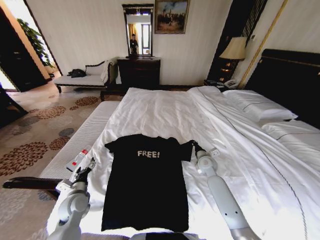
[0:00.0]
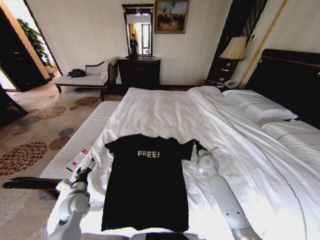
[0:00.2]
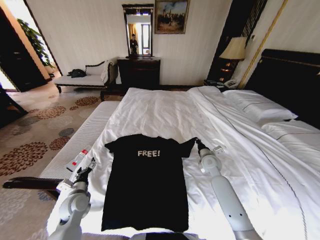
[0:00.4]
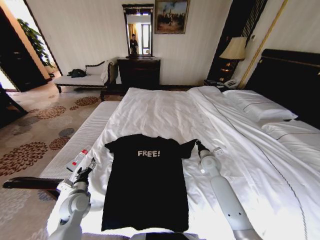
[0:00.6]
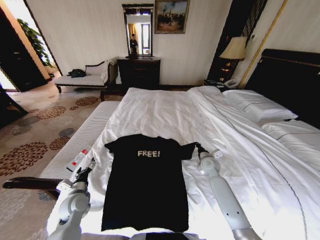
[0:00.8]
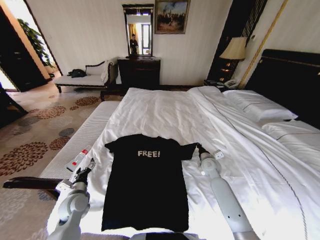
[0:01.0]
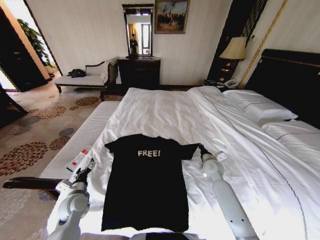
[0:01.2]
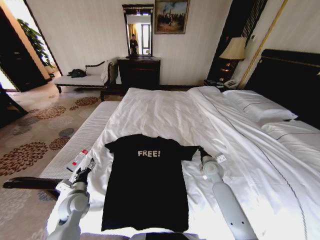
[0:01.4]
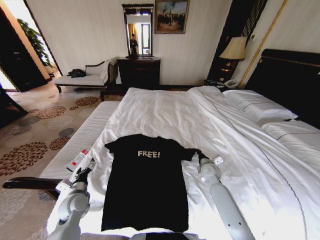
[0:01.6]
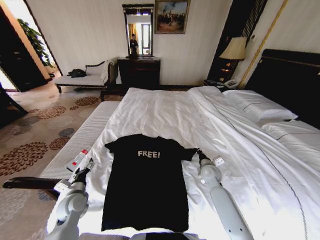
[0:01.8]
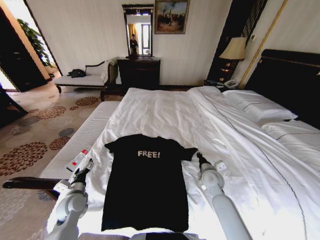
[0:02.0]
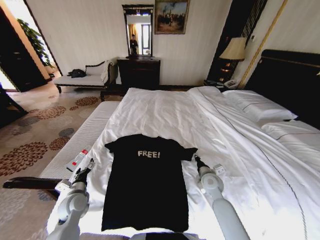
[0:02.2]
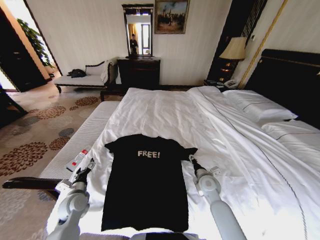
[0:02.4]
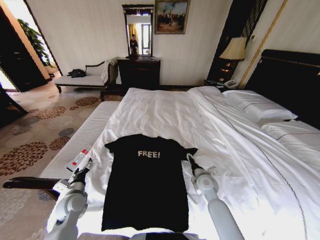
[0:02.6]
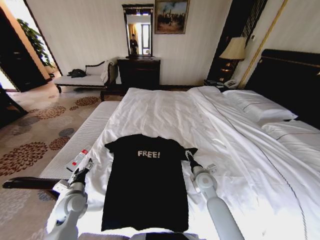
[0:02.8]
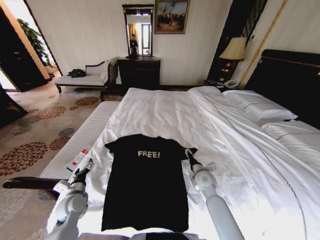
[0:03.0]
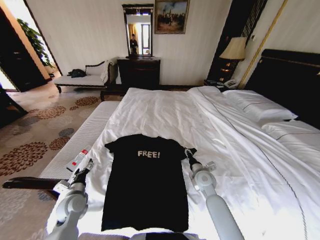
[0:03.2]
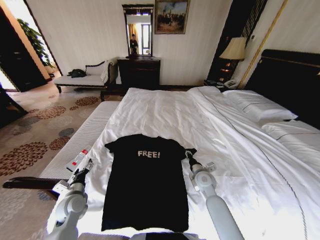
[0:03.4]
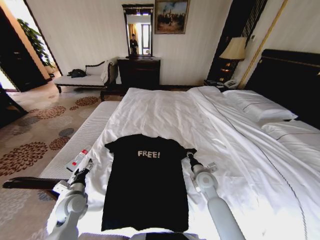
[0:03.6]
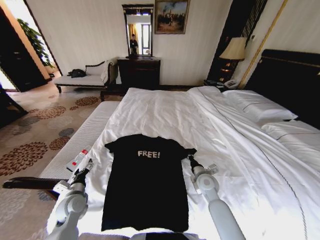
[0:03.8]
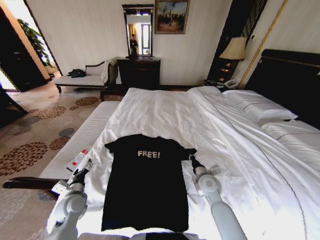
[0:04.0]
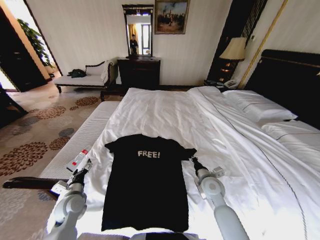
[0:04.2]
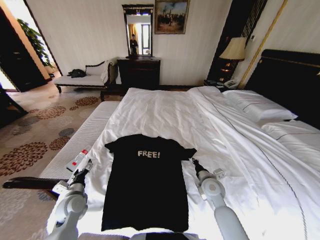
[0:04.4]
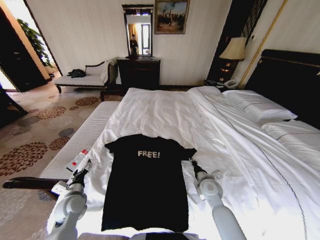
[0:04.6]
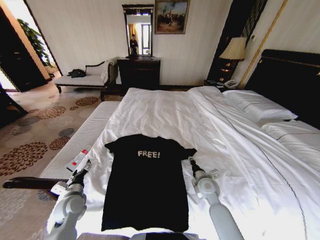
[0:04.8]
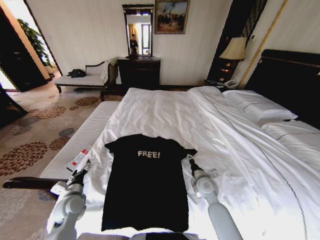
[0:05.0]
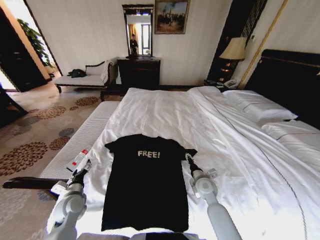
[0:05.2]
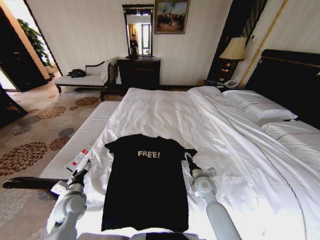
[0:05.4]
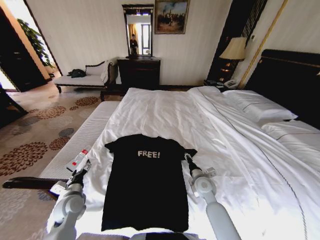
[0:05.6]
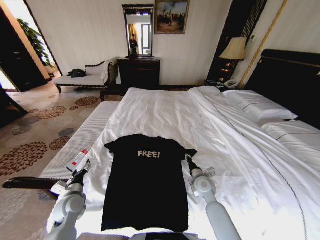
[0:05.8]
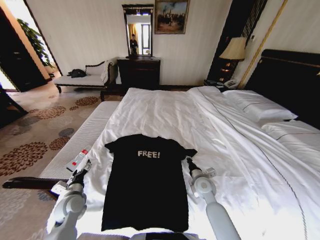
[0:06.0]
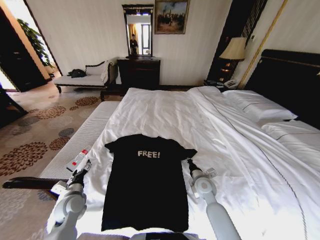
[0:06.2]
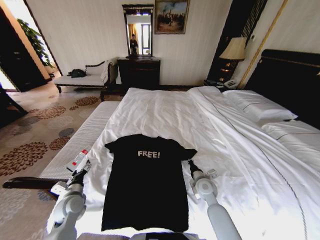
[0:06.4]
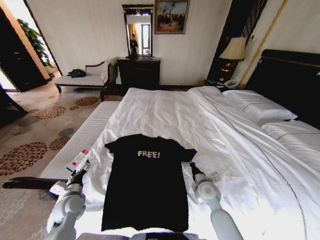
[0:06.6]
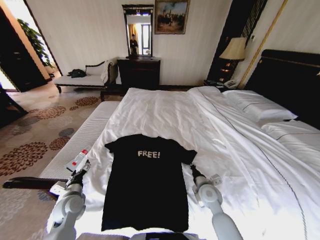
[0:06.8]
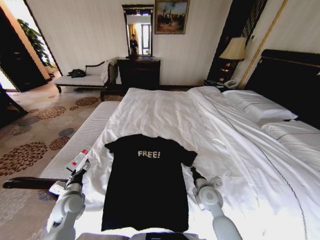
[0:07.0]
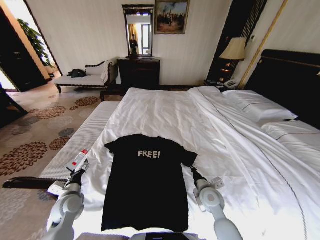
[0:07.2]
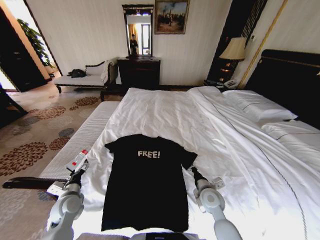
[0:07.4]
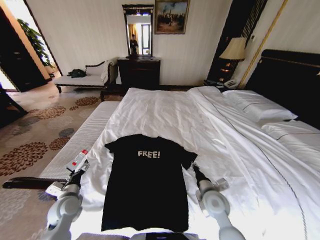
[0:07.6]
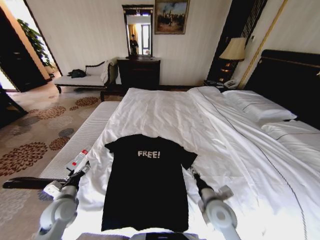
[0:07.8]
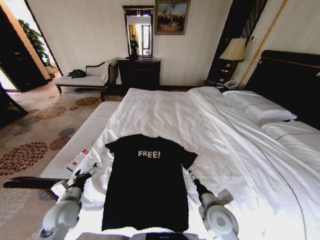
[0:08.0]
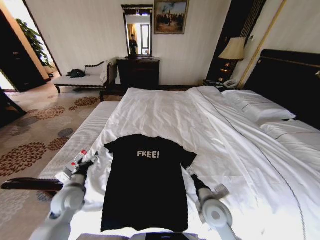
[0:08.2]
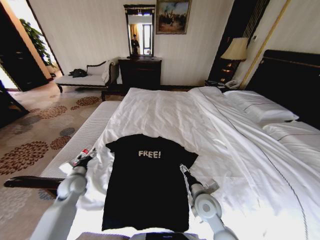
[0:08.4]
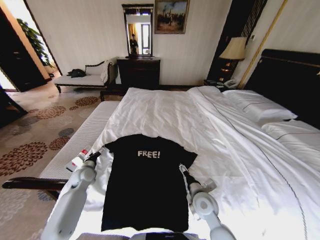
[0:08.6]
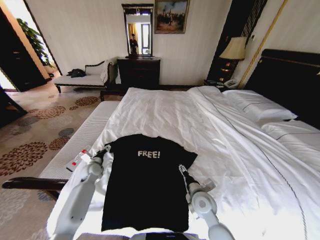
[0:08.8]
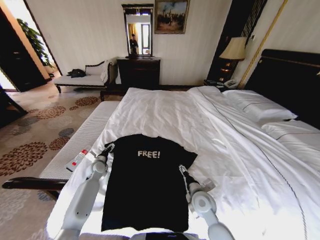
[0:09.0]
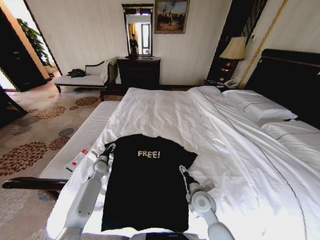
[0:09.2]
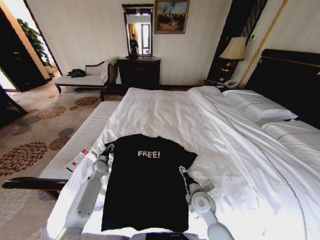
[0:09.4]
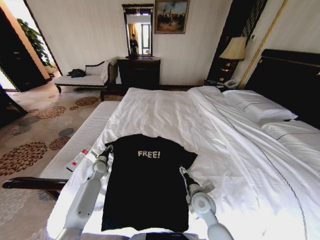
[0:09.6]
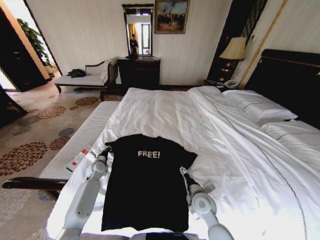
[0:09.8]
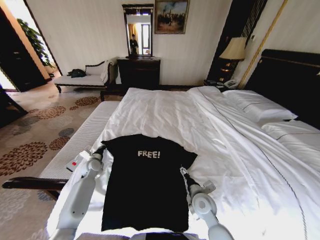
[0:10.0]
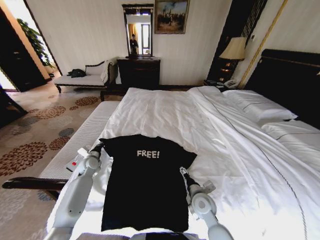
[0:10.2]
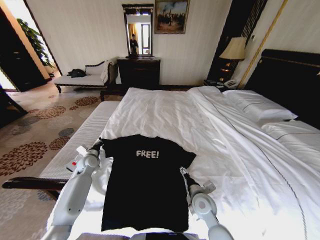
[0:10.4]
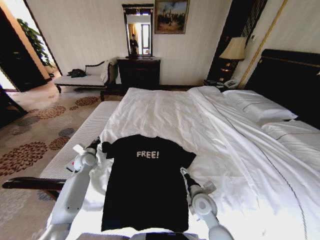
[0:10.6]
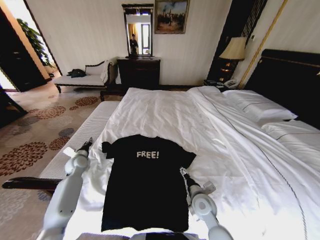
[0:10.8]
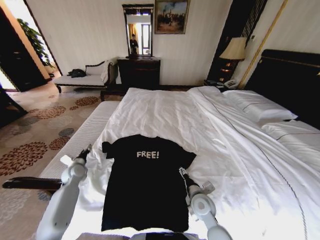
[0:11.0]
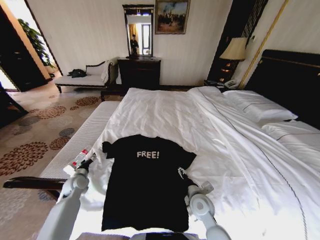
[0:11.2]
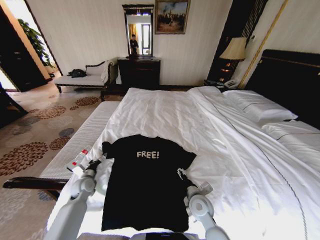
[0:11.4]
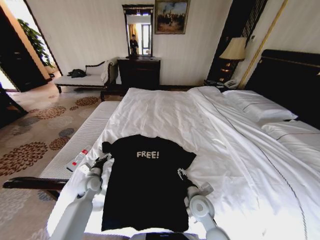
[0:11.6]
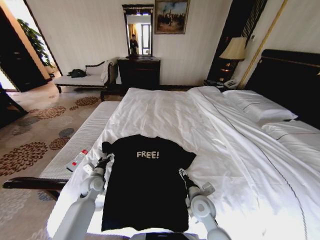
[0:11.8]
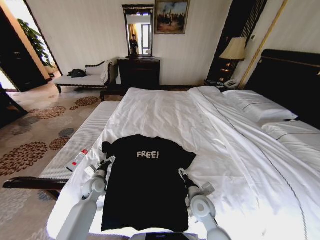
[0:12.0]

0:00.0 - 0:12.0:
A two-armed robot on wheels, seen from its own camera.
Task of the whole recording: Fold the clothes on the bed.
0:00.0 - 0:01.6: There are only small adjustments of the grippers.
0:01.6 - 0:03.0: The right gripper travels to the left by about 5 cm, and opens.
0:03.0 - 0:04.4: The right gripper closes up.
0:04.4 - 0:06.0: The right gripper opens and closes again.
0:06.0 - 0:07.6: The right gripper moves backward, about 5 cm.
0:07.6 - 0:09.0: The right gripper opens; the left gripper shifts approximately 20 cm forward.
0:09.0 - 0:10.4: The left gripper shifts by approximately 5 cm, and closes its fingers.
0:10.4 - 0:12.0: The left gripper travels backward, downward and to the right by some 15 cm, and opens its fingers.

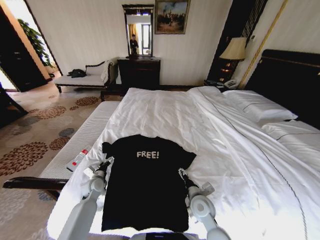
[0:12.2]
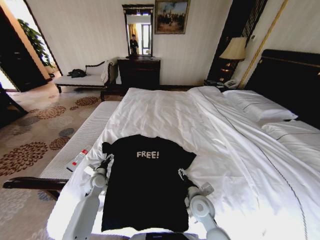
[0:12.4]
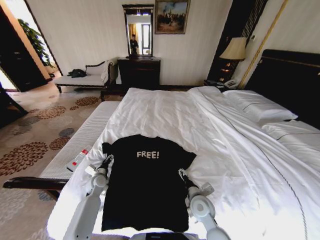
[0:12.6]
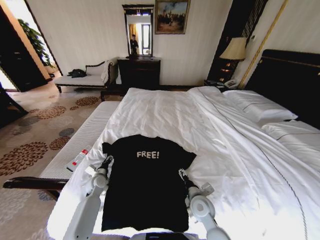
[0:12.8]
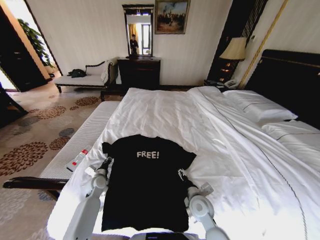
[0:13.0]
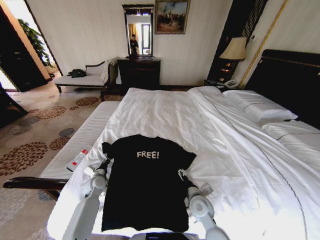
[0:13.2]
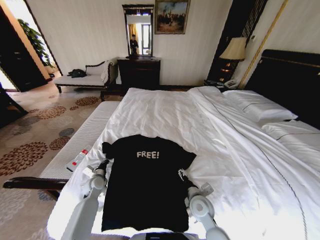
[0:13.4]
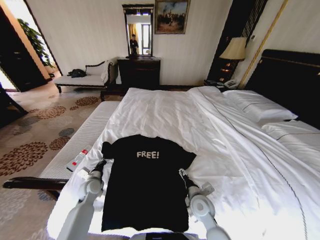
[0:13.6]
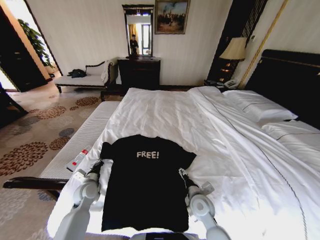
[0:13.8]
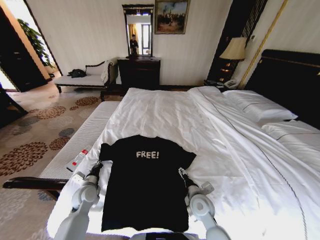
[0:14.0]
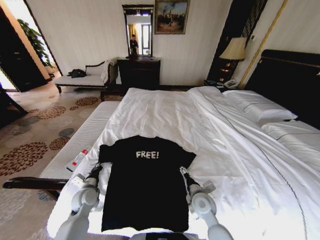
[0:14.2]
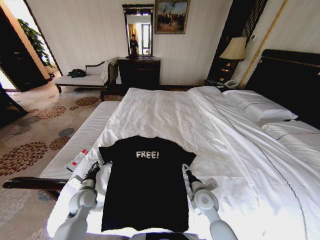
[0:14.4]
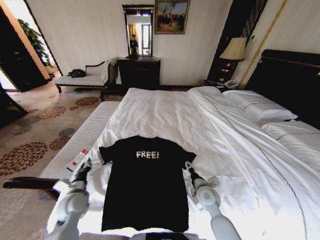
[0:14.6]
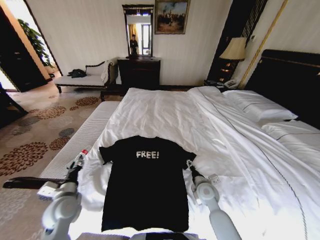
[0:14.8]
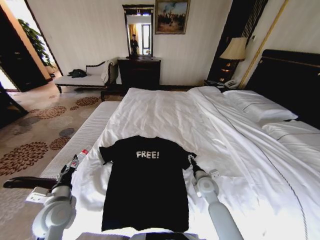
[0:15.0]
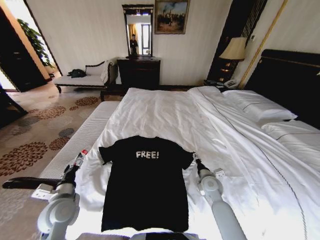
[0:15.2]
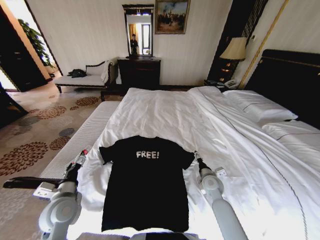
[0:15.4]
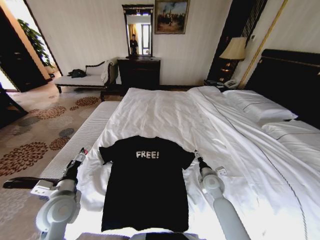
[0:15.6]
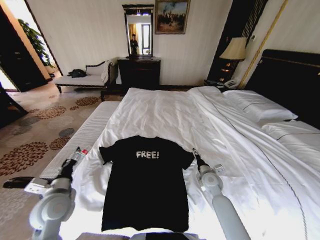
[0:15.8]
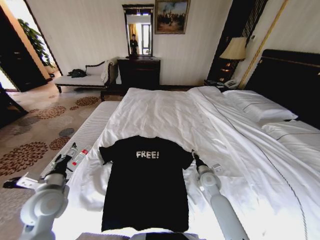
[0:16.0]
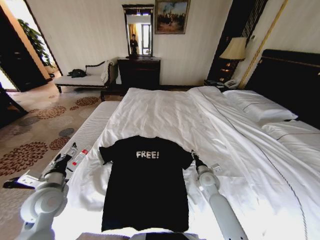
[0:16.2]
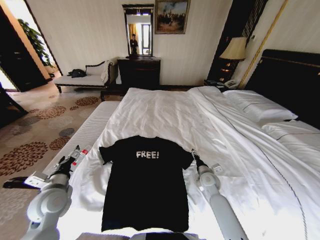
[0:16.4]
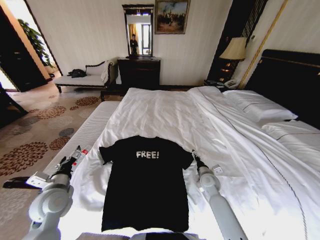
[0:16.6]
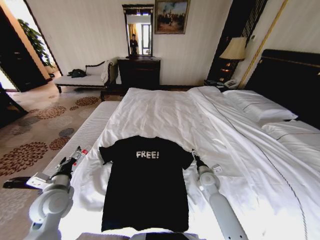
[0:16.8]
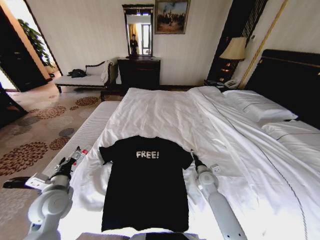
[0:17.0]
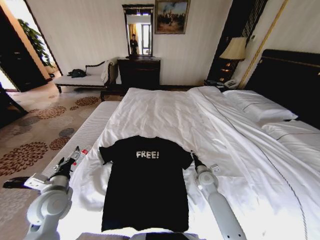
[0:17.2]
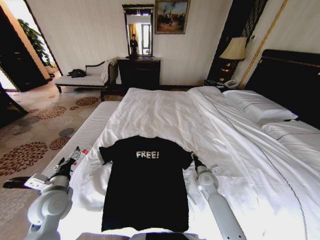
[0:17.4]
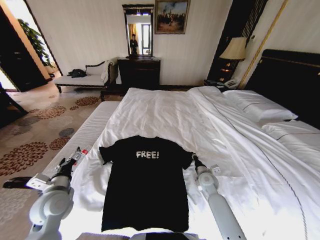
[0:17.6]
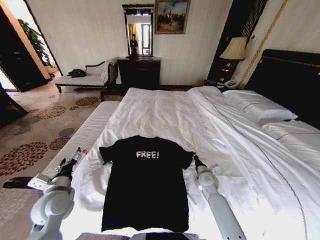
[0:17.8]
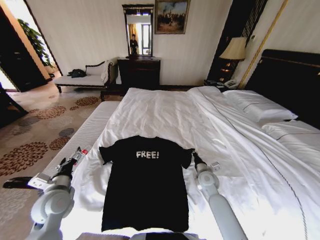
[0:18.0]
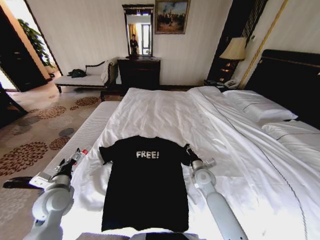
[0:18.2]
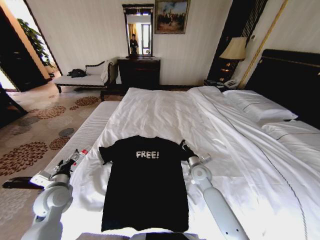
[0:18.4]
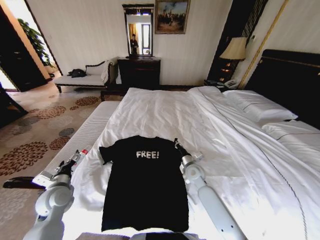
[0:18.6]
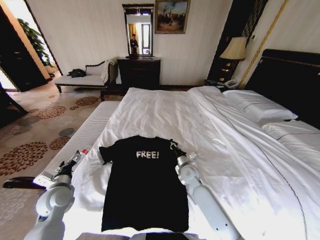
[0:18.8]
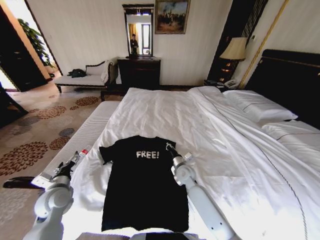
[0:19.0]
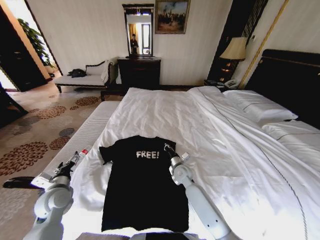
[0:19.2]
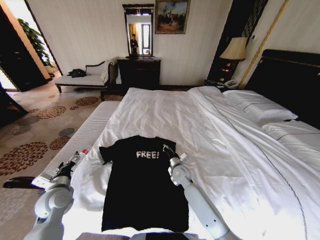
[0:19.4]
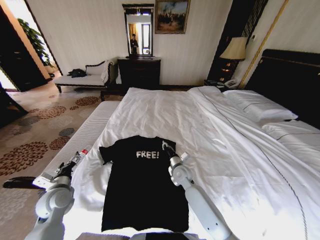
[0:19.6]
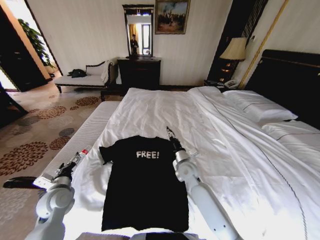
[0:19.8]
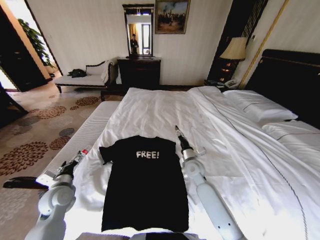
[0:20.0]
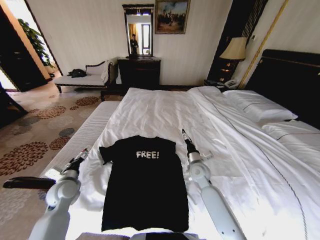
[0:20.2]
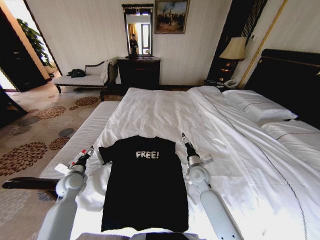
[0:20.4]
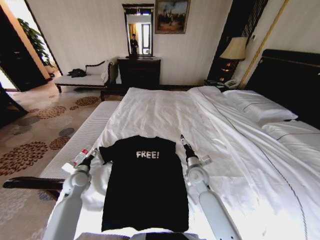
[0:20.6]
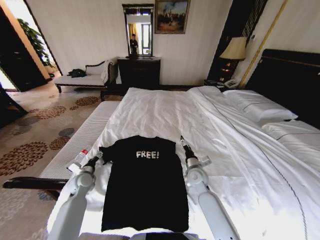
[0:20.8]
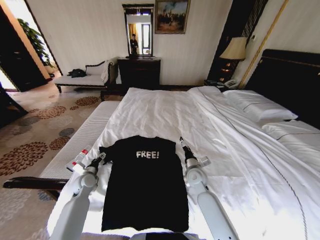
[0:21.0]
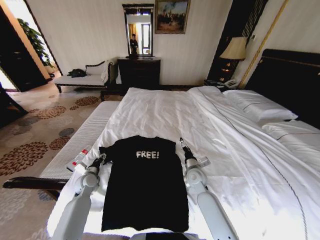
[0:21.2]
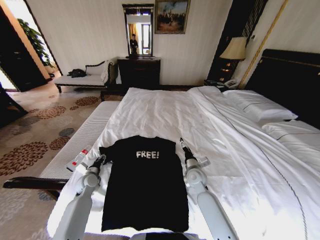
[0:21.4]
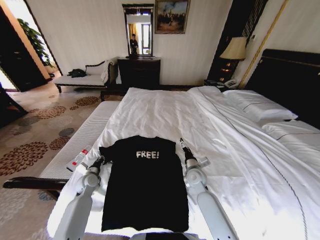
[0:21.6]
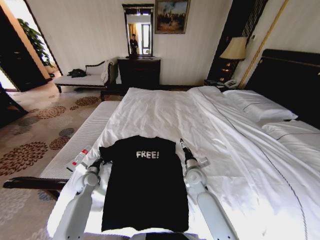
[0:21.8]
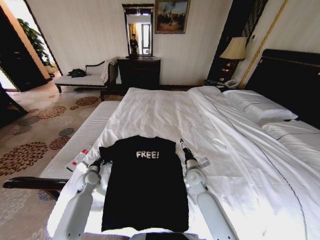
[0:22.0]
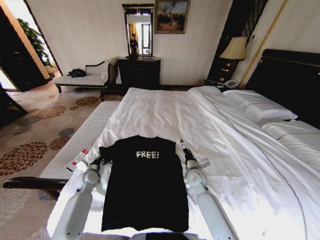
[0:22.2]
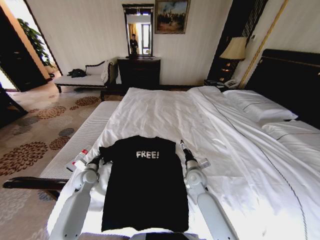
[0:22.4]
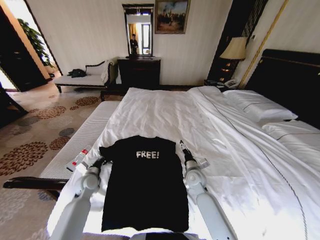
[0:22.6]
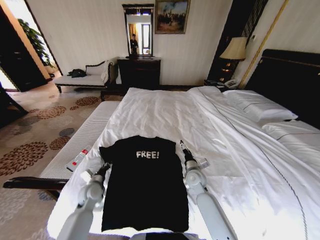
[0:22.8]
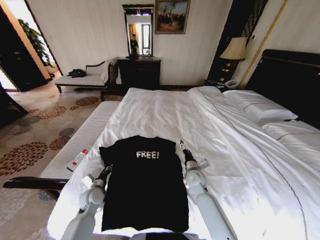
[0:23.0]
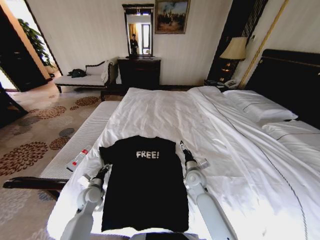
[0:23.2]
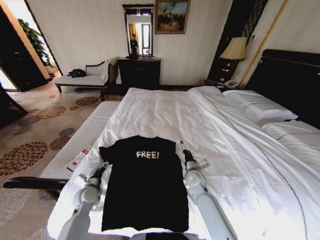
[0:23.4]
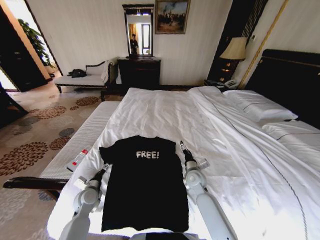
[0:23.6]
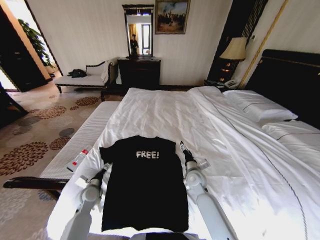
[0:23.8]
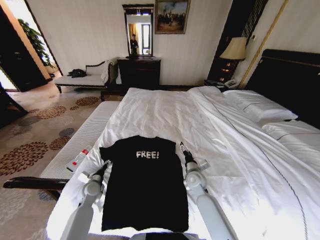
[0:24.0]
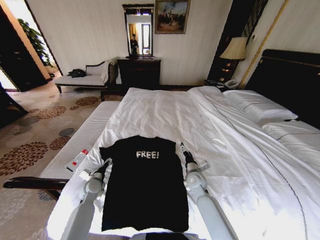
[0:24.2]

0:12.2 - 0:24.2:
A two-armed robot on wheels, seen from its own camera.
Task of the whole recording: Fold the clothes on the bed.
0:12.2 - 0:13.8: The left gripper changes place by approximately 5 cm, and closes its fingers.
0:13.8 - 0:15.2: The right gripper is displaced forward and to the right by approximately 10 cm. Meanwhile the left gripper heads backward and upward, covering roughly 15 cm, and opens.
0:15.2 - 0:16.6: The right gripper closes, then opens again.
0:16.6 - 0:18.2: The right gripper moves about 5 cm, and closes.
0:18.2 - 0:19.8: The right gripper goes some 10 cm to the left, and opens up.
0:19.8 - 0:21.2: The left gripper is displaced forward and downward by some 15 cm, while the right gripper changes place by approximately 5 cm, and opens up.
0:21.2 - 0:22.6: The left gripper closes its fingers.
0:22.6 - 0:24.2: The left gripper opens its fingers.
